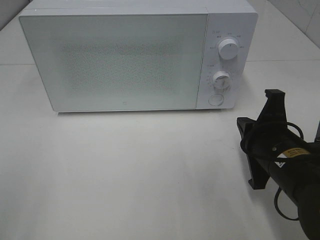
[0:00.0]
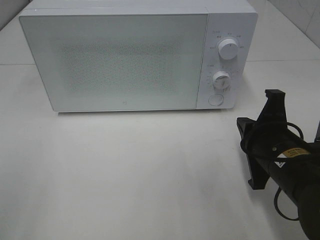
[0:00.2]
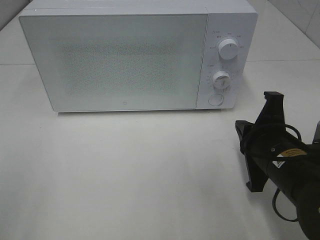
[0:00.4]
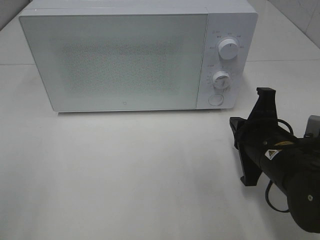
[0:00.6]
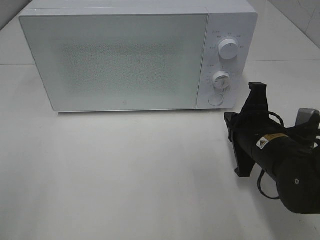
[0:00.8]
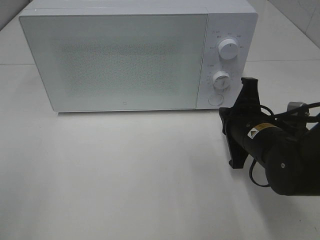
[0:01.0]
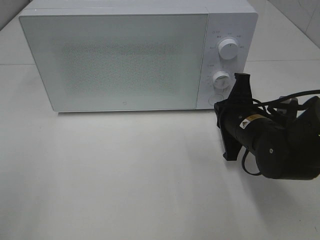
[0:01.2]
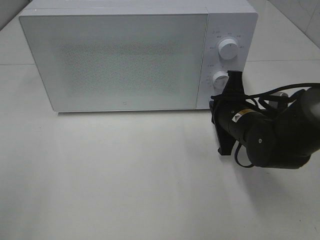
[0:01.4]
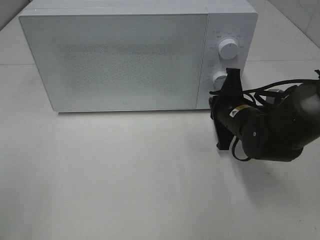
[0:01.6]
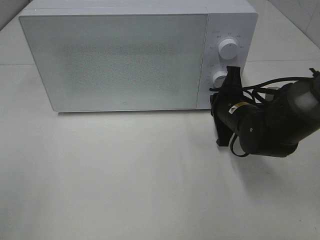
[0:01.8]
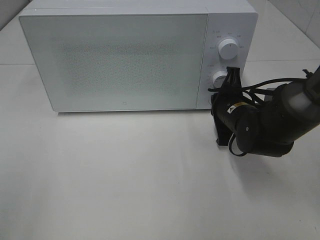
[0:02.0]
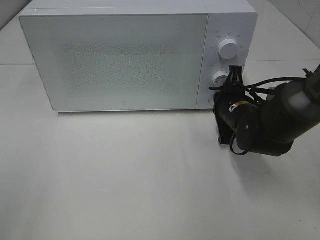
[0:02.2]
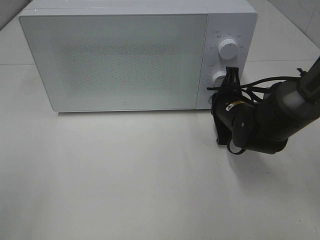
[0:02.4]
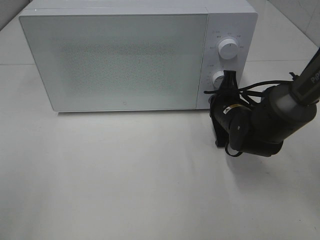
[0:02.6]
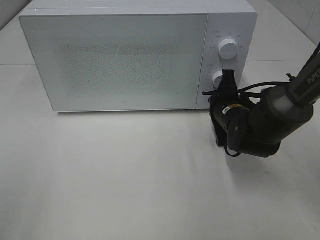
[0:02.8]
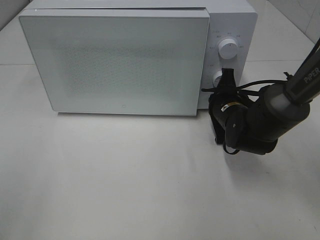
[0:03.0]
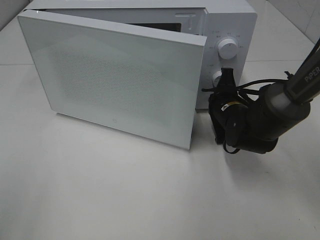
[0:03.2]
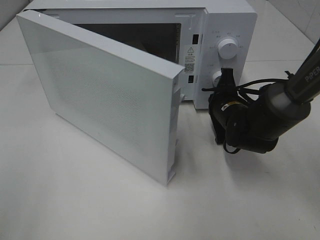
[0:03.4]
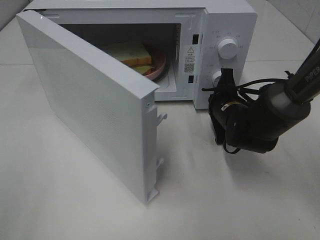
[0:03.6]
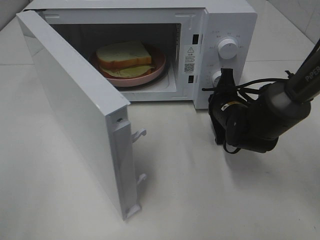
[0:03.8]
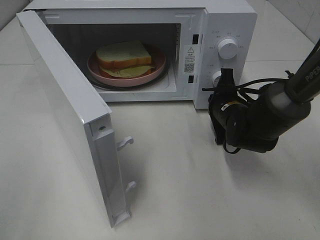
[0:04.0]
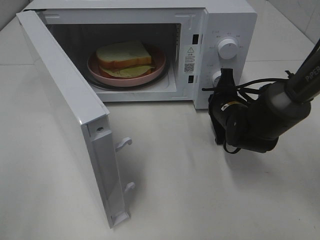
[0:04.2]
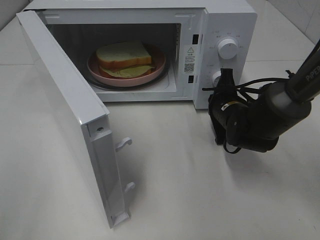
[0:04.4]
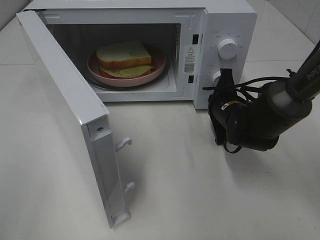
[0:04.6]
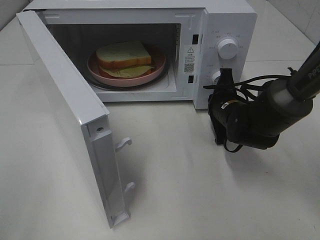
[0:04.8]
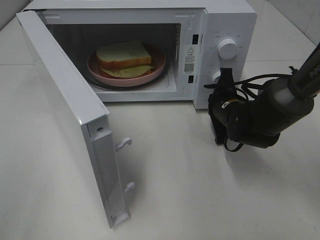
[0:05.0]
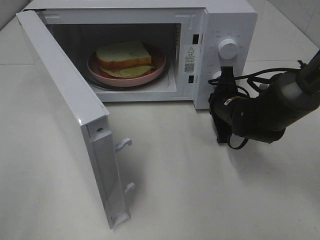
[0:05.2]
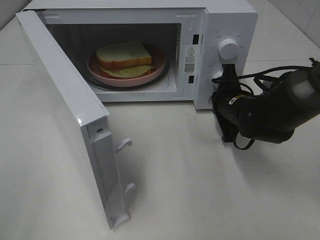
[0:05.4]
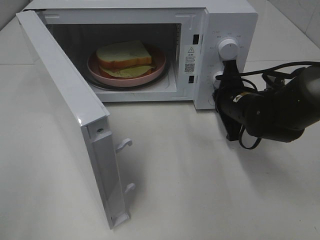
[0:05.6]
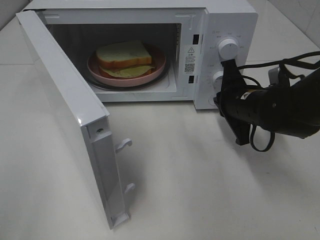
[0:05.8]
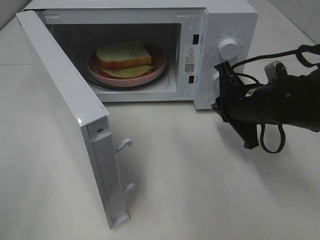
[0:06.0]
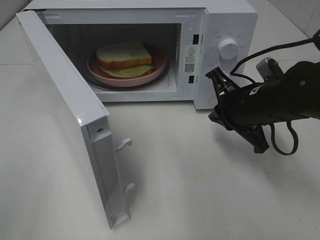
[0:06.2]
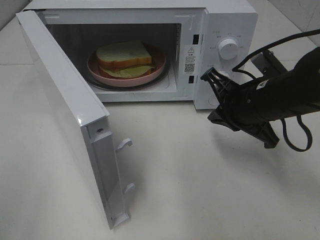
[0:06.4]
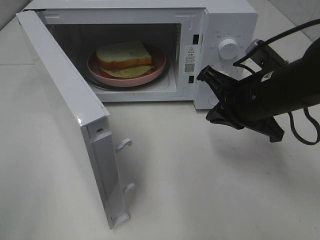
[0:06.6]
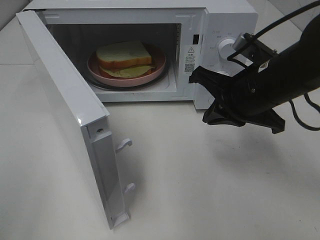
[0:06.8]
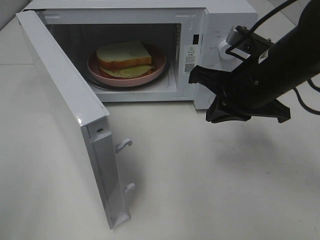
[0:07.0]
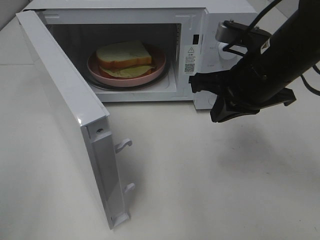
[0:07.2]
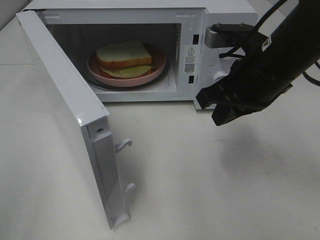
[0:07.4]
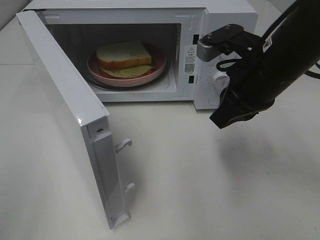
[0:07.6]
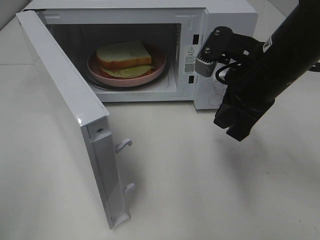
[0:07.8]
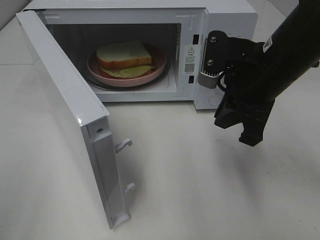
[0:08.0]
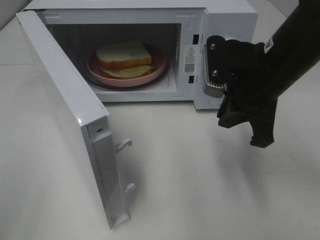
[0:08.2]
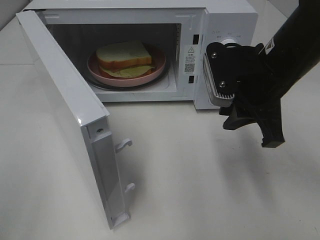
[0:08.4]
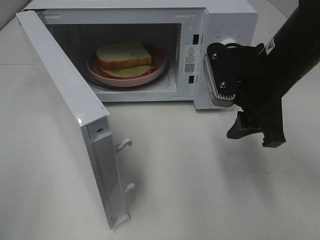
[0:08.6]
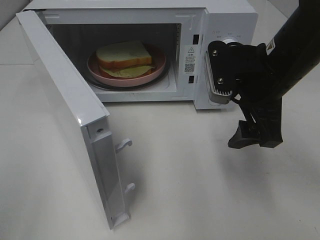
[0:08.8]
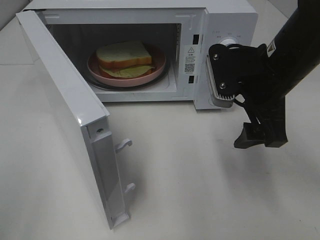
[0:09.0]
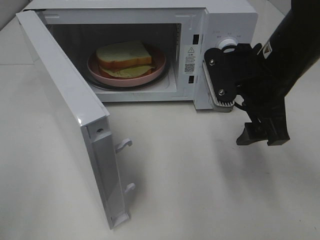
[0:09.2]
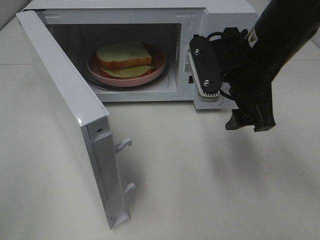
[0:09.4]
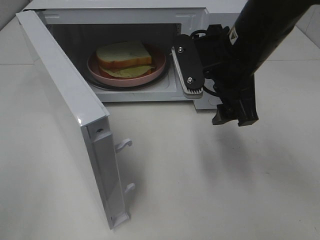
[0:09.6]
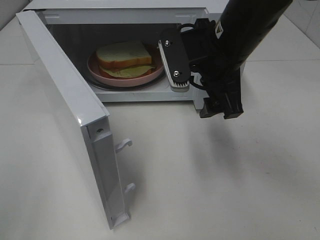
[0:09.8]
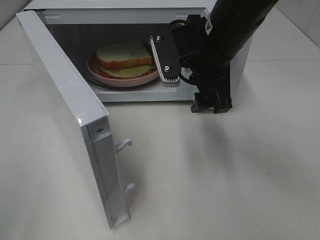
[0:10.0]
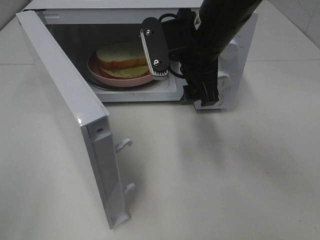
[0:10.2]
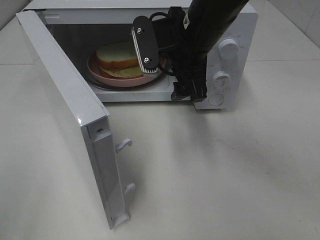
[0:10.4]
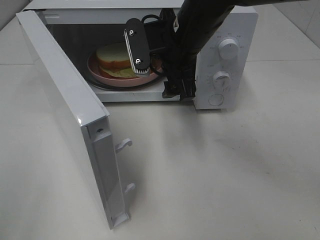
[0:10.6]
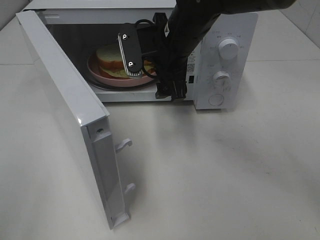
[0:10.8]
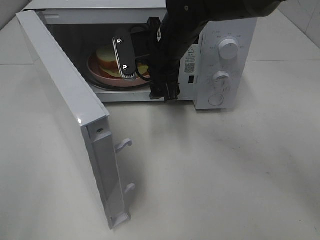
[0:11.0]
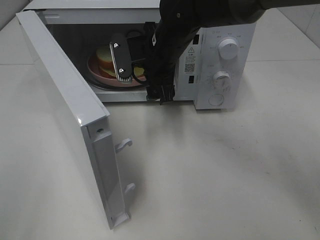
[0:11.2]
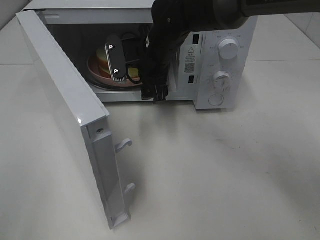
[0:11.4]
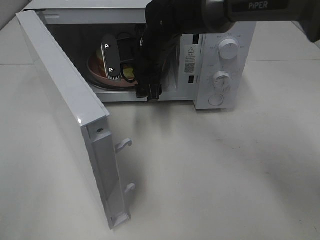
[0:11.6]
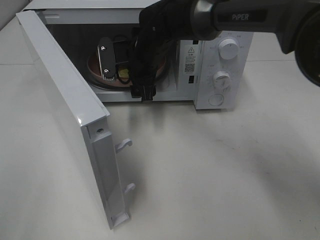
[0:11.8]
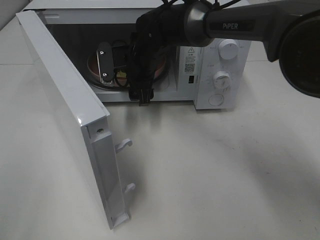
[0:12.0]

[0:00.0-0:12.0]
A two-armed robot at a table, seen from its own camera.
Task of the whole recording: Heat Sandwich.
Step, 0:00.0 to 0:05.6: Right hand: press the switch.
0:00.0 to 0:01.6: The right gripper goes roughly 10 cm forward.
0:01.6 to 0:03.0: The grippers stay close to where they were, moving slightly.
0:04.4 to 0:06.0: The right gripper shifts roughly 10 cm upward and backward.
0:06.0 to 0:07.6: The right gripper shifts about 10 cm upward.
0:07.6 to 0:09.0: The right gripper opens up.
0:09.0 to 0:10.4: The right gripper goes approximately 10 cm to the left and forward.
0:10.4 to 0:12.0: The right gripper travels forward, downward and to the left by about 15 cm.

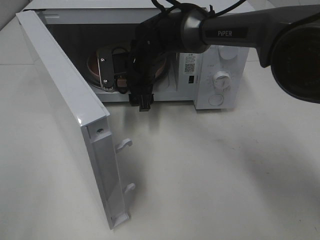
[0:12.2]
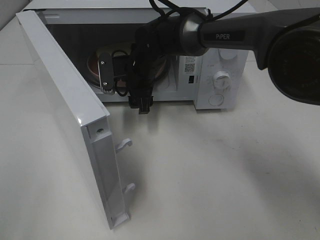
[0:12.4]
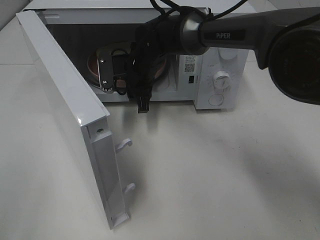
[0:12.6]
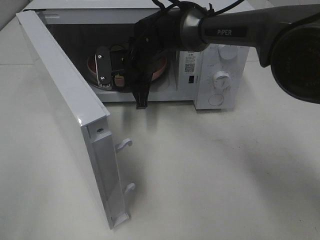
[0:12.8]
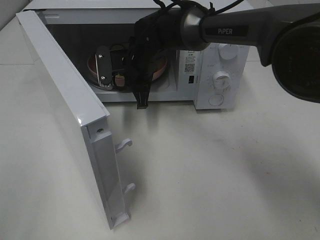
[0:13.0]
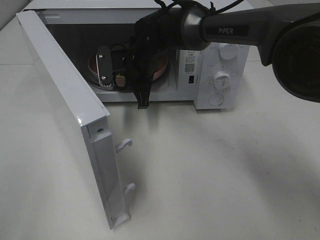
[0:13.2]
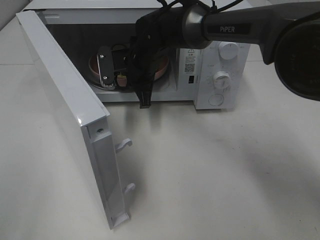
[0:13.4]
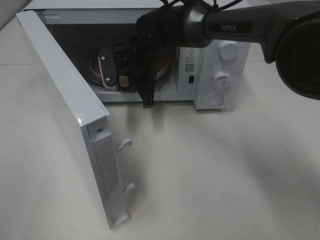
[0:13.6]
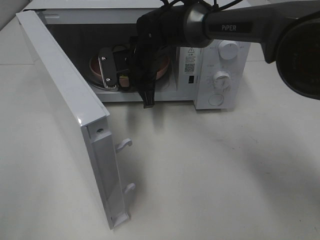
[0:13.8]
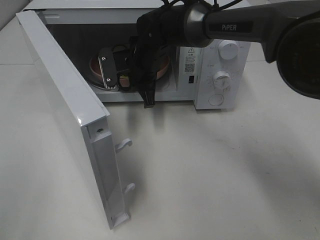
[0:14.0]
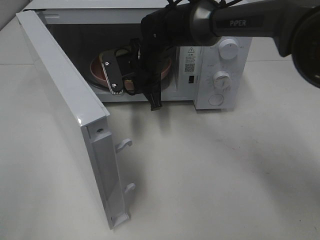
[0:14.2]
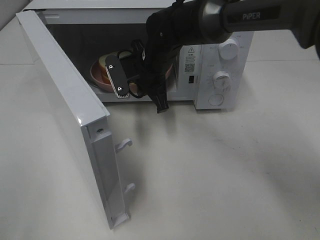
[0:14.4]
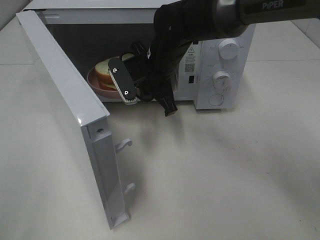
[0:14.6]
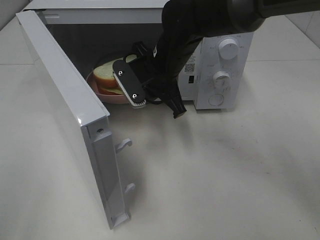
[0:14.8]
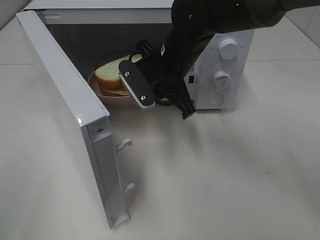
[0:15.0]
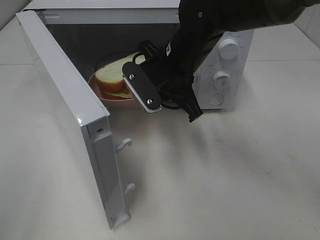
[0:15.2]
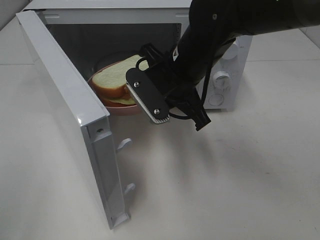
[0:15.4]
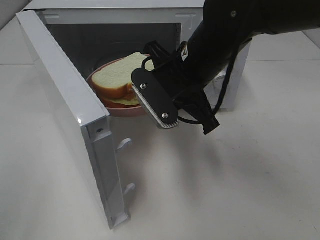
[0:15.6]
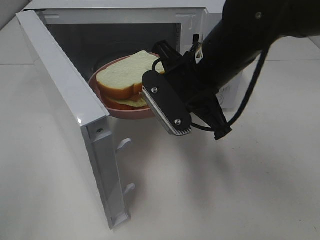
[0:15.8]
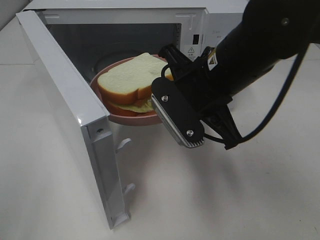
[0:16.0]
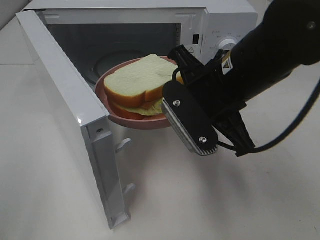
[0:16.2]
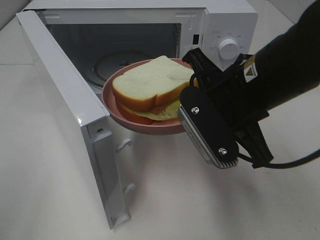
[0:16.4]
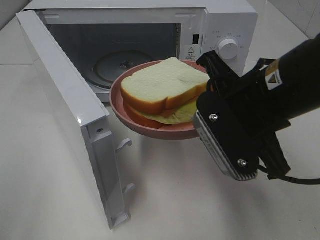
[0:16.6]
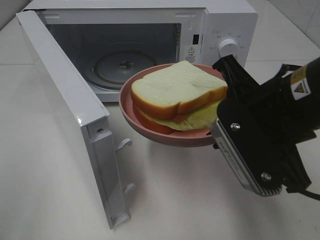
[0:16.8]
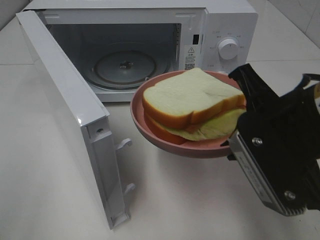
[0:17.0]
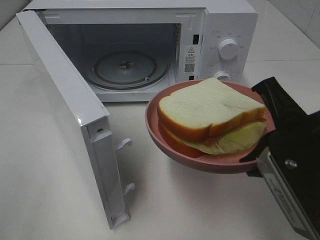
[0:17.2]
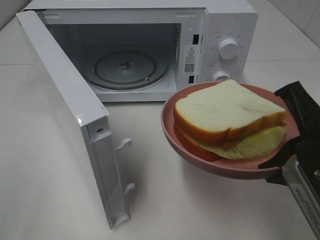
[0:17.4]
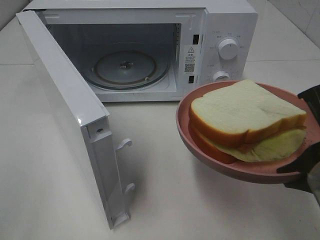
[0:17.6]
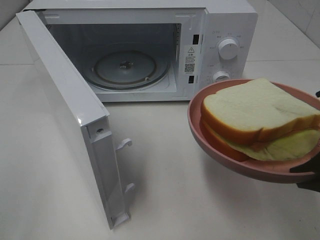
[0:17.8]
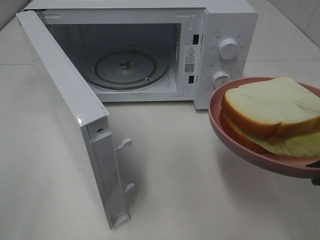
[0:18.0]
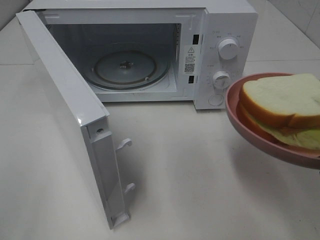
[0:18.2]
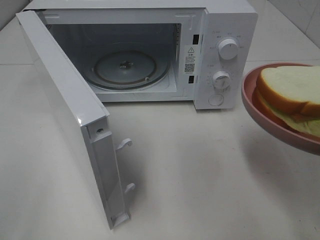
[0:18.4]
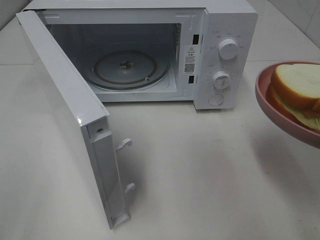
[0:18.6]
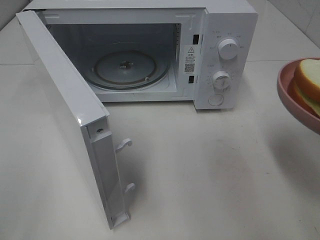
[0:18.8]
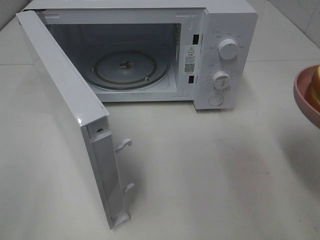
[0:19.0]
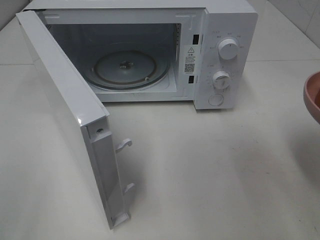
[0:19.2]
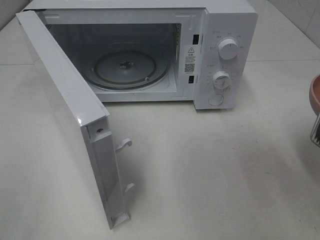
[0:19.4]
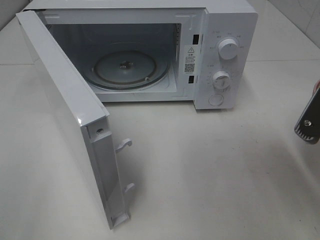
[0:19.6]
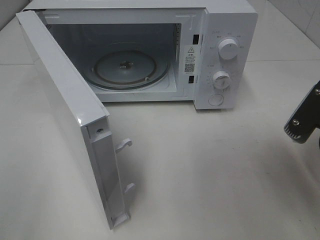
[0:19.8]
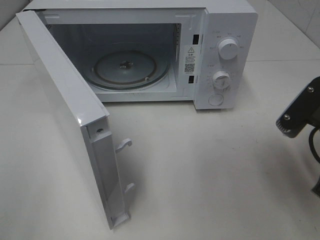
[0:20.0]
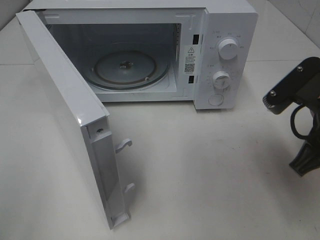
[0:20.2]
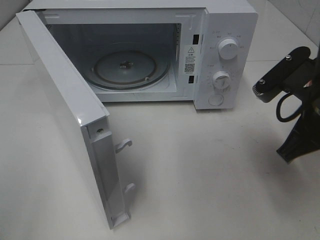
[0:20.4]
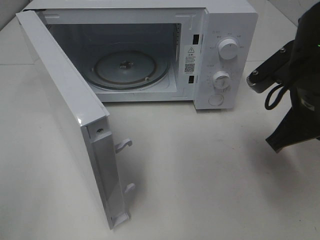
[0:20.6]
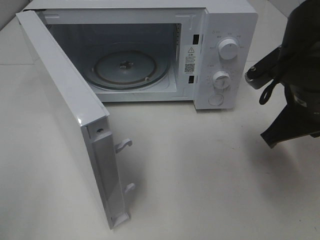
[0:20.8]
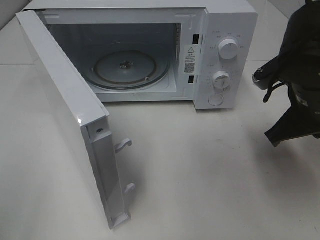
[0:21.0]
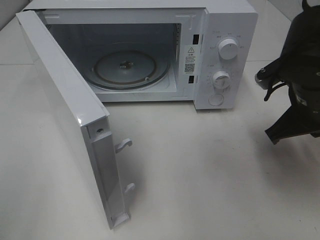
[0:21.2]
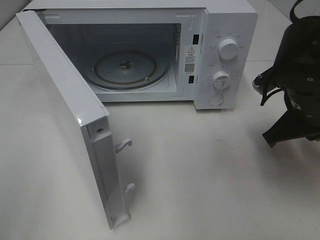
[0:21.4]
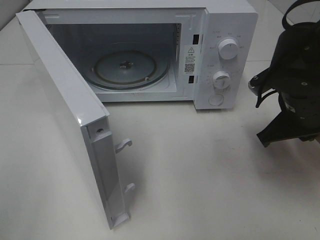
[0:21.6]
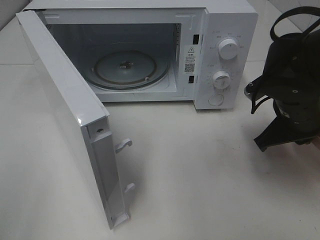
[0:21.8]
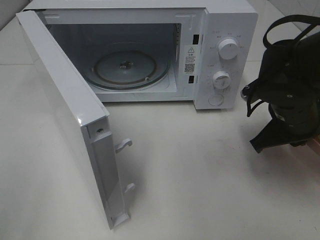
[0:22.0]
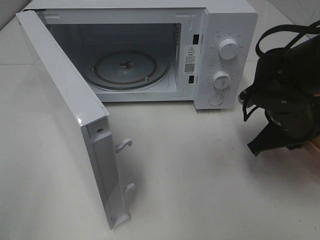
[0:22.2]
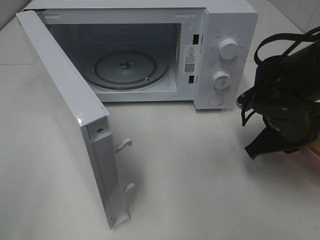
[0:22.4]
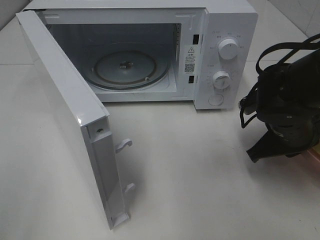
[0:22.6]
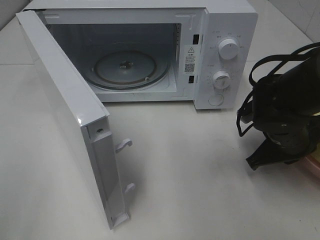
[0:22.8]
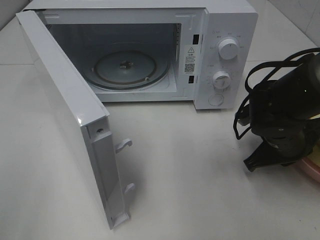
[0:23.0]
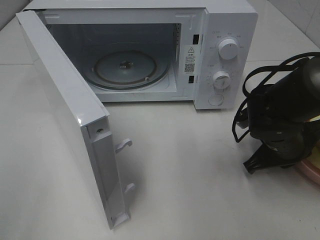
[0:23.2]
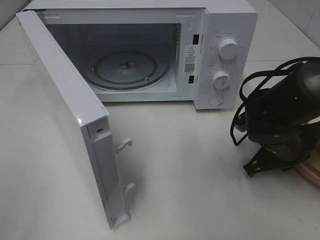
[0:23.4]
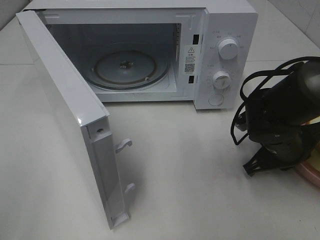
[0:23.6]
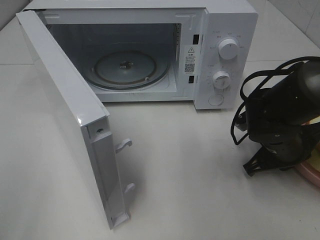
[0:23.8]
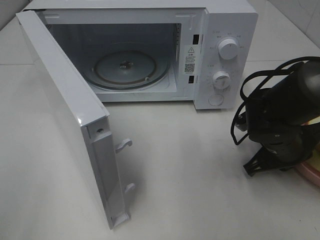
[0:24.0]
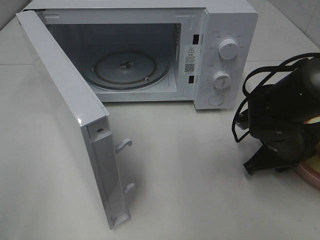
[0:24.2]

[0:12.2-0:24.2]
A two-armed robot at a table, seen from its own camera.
Task of the whole recording: Heat Sandwich.
0:12.2 to 0:13.8: The right gripper closes up.
0:13.8 to 0:15.2: The right gripper heads backward, to the right and upward, covering some 15 cm.
0:15.2 to 0:16.6: The right gripper travels backward and to the right by about 15 cm.
0:16.6 to 0:18.2: The right gripper is displaced to the right and backward by roughly 15 cm.
0:18.2 to 0:19.8: The right gripper travels forward by about 5 cm.
0:19.8 to 0:21.2: The right gripper travels forward by about 10 cm.
0:21.2 to 0:22.6: The right gripper heads downward, covering approximately 5 cm.
0:22.6 to 0:24.2: There are only small adjustments of the grippers.
